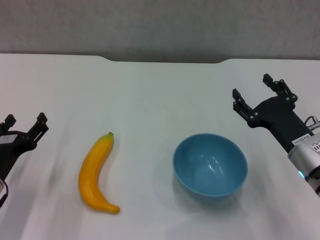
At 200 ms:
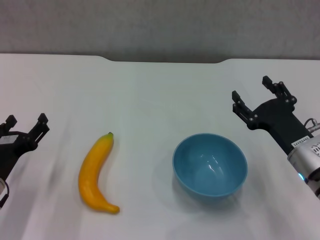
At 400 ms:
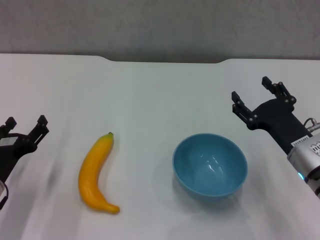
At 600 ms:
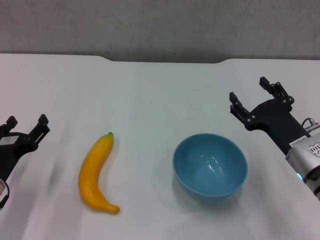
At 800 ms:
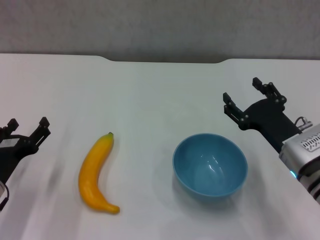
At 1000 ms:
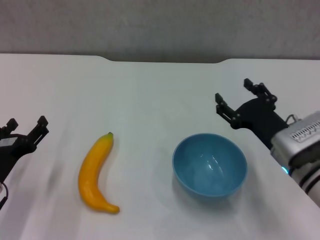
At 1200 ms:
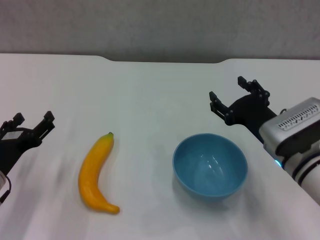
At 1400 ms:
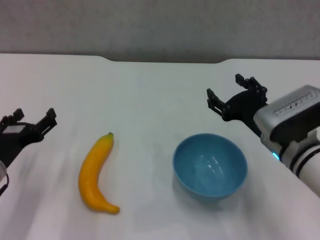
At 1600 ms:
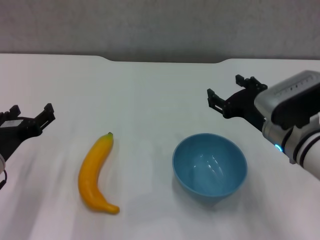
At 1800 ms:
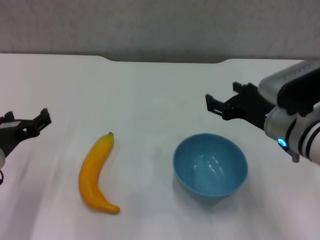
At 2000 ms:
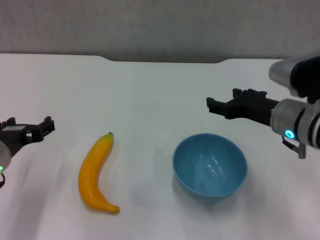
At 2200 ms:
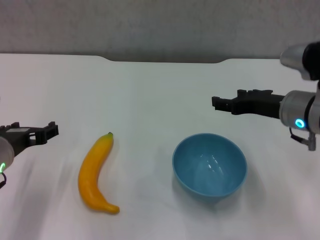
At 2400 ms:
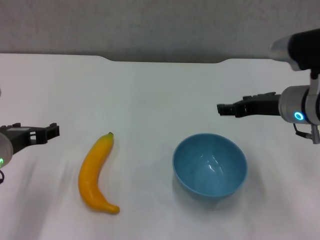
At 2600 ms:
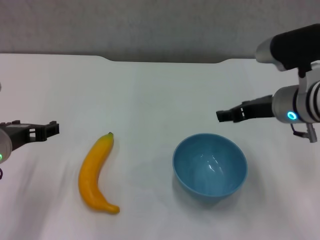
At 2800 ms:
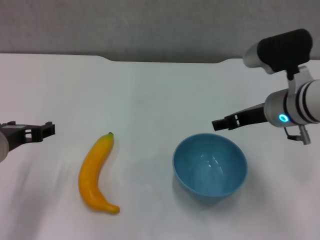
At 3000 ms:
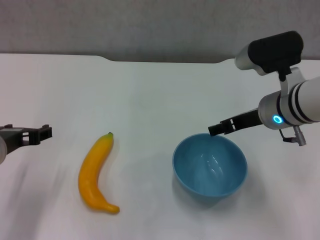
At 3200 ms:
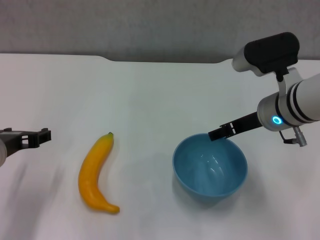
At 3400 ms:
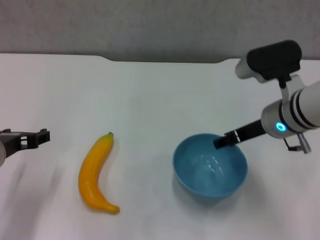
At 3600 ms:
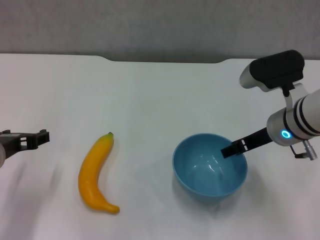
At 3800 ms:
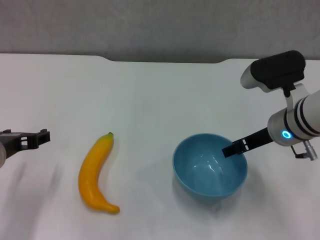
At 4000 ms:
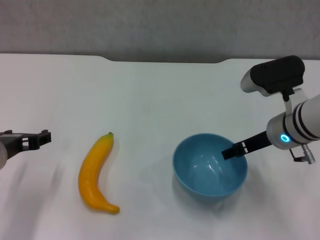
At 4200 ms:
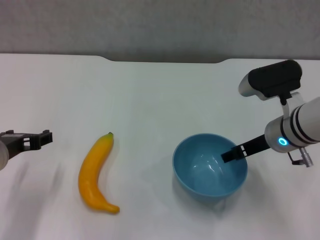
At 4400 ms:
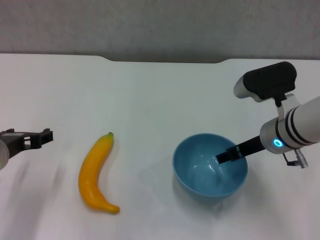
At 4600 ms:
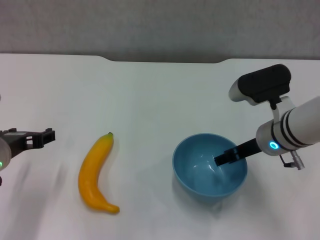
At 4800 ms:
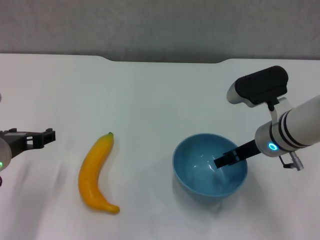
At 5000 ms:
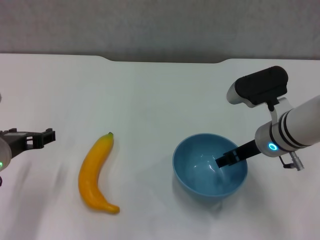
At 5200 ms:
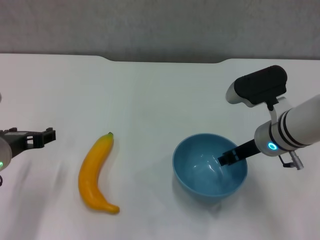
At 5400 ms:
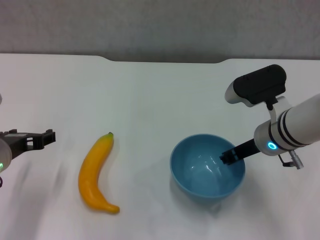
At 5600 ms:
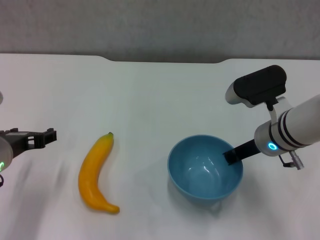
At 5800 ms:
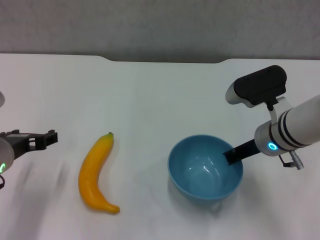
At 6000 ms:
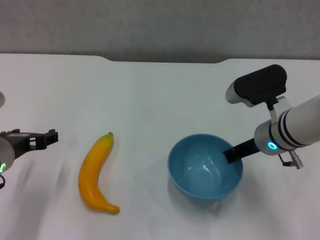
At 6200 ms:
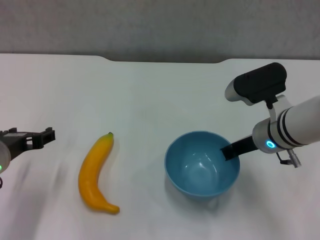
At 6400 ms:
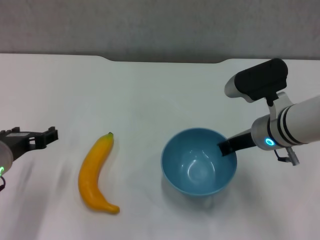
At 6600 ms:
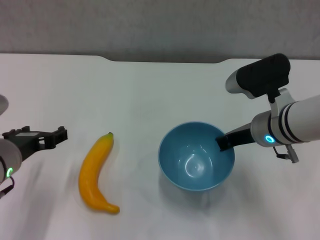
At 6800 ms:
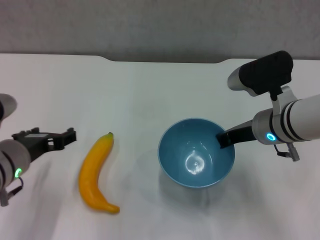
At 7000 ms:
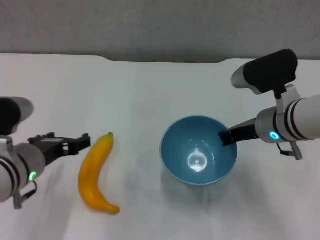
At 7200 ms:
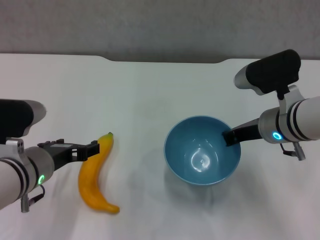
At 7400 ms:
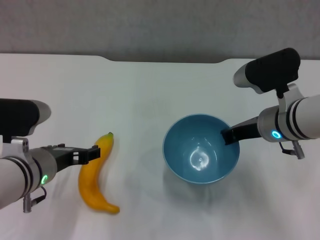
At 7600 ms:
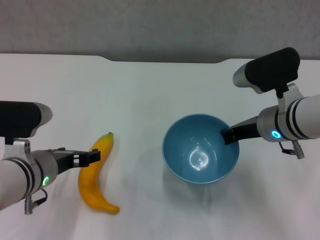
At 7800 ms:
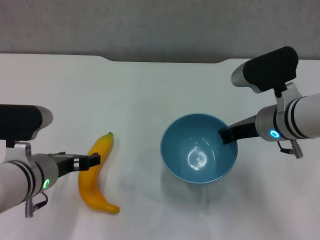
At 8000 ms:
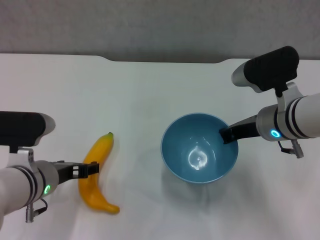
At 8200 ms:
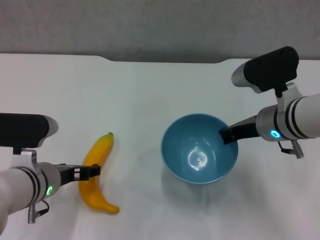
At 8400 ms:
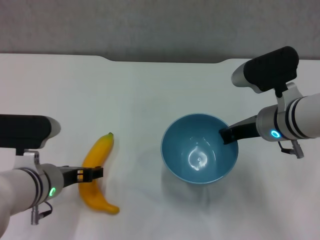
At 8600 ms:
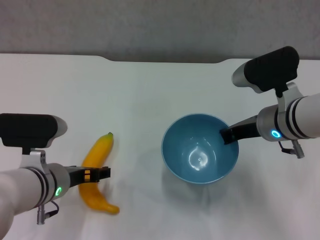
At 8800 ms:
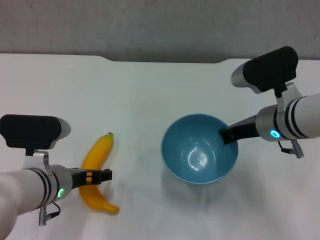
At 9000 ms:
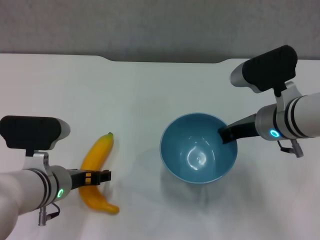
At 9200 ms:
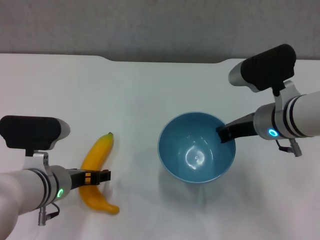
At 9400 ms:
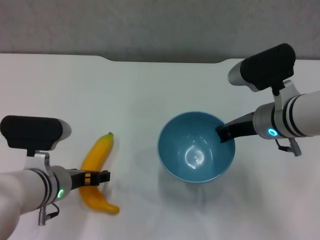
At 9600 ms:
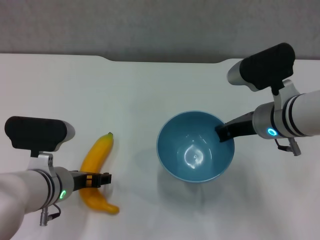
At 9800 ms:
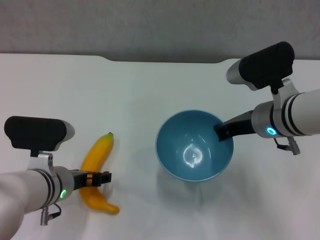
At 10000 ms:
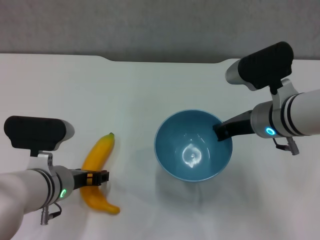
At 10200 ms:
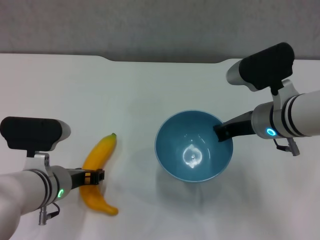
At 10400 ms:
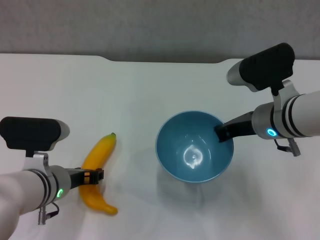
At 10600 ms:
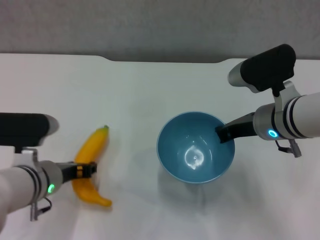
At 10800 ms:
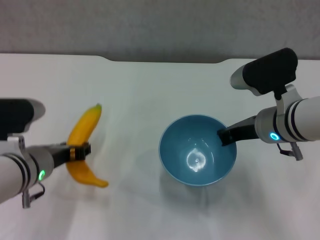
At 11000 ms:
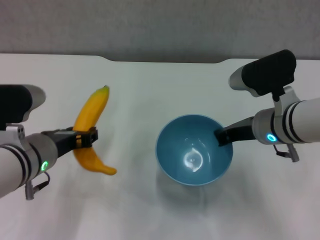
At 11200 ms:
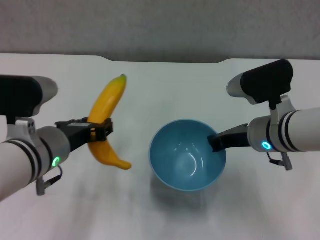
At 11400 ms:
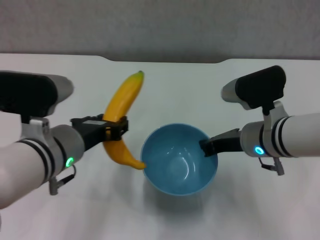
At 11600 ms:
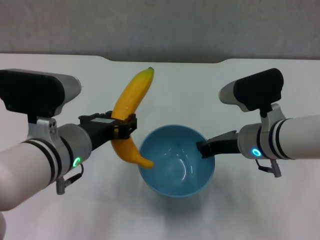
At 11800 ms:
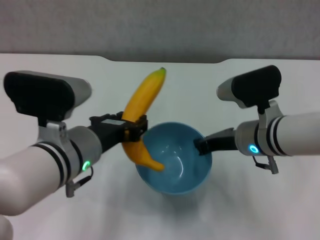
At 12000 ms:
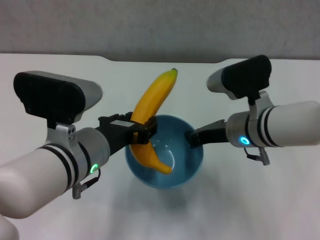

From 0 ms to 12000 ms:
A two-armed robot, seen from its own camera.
Step, from 0 ms to 5800 ms: Grasp the blue bowl with right gripper.
Step, from 6000 ms to 7400 ms: Lift the blue bowl with right gripper.
Step, from 7600 ms to 10200 ms: Grasp the banana with left gripper.
From 0 ms to 1600 ms: Both grippers move upward, some 5 cm.
From 1600 ms to 3000 ms: The right gripper shifts by about 5 cm. The left gripper goes some 5 cm upward.
From 3000 ms to 4400 ms: The grippers make only small movements.
From 4400 ms to 6000 ms: The right gripper closes its fingers.
From 6000 ms to 7600 ms: The left gripper shifts by about 5 cm.
From 7600 ms to 9000 ms: The grippers make only small movements.
From 9000 ms to 10400 ms: The left gripper closes its fingers.
From 10400 ms to 12000 ms: The left gripper heads upward and to the right, covering some 10 cm.

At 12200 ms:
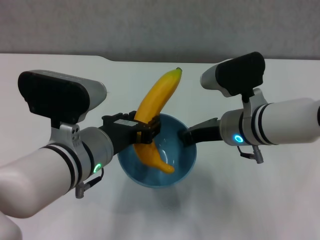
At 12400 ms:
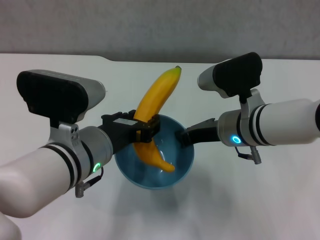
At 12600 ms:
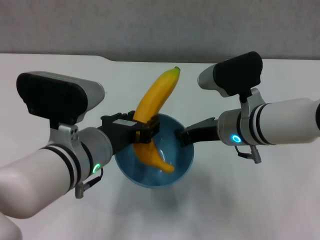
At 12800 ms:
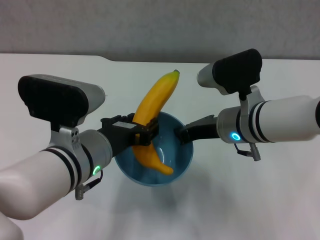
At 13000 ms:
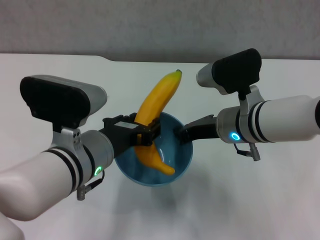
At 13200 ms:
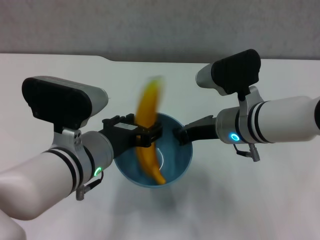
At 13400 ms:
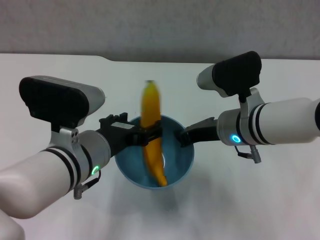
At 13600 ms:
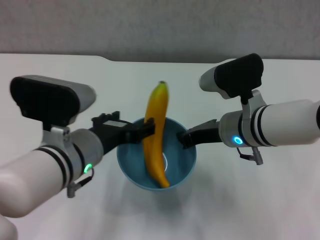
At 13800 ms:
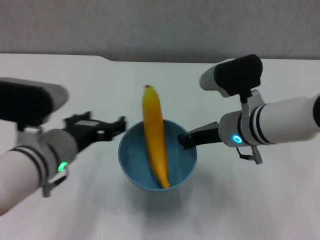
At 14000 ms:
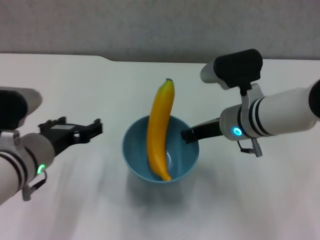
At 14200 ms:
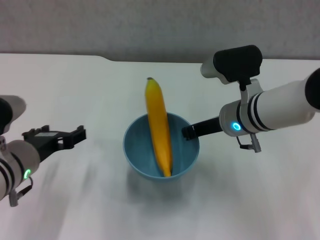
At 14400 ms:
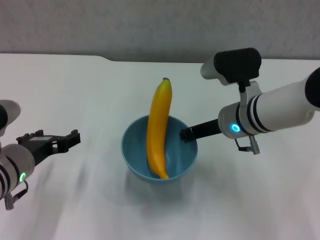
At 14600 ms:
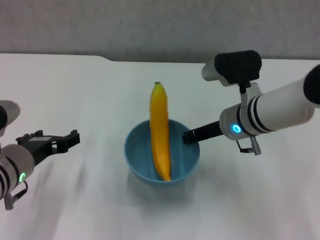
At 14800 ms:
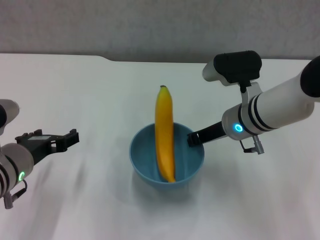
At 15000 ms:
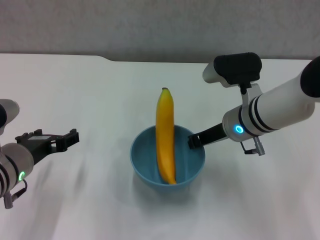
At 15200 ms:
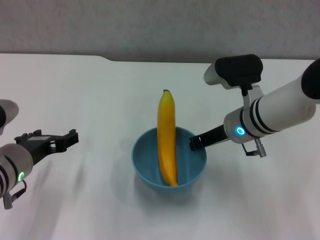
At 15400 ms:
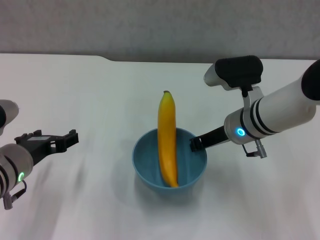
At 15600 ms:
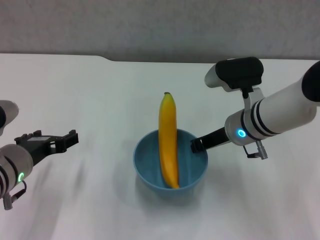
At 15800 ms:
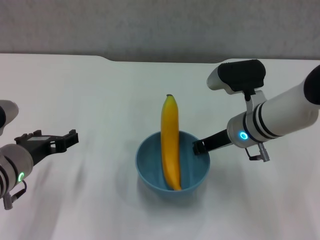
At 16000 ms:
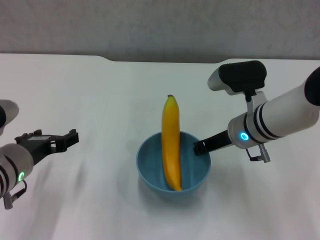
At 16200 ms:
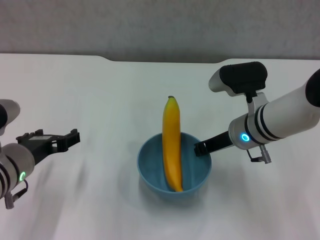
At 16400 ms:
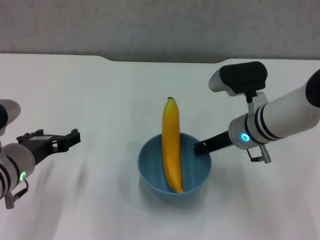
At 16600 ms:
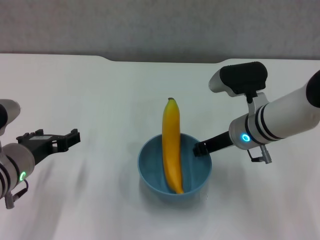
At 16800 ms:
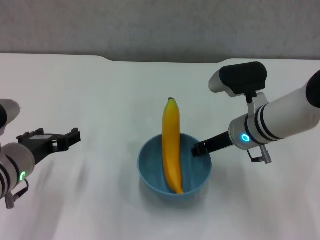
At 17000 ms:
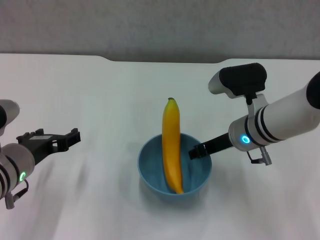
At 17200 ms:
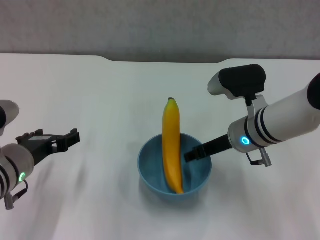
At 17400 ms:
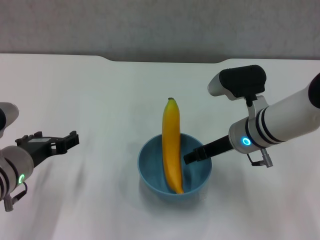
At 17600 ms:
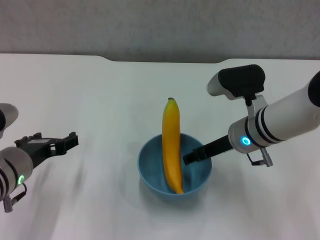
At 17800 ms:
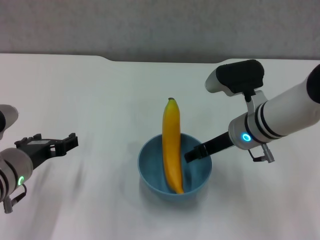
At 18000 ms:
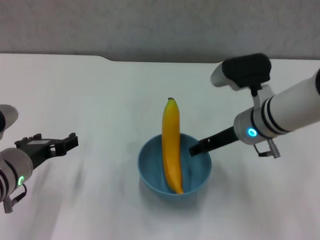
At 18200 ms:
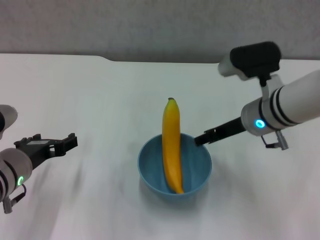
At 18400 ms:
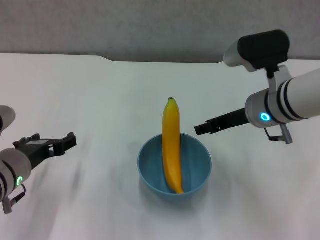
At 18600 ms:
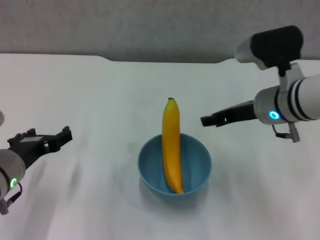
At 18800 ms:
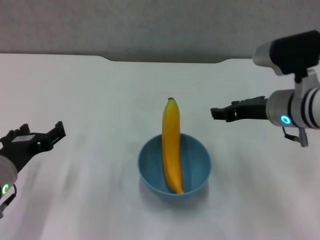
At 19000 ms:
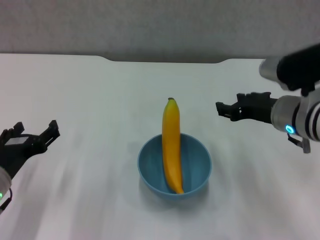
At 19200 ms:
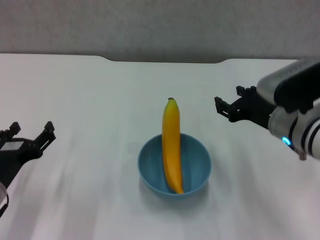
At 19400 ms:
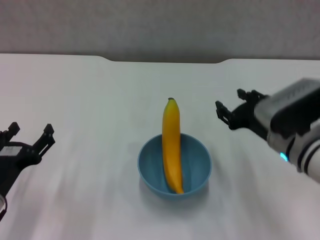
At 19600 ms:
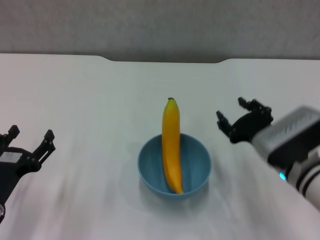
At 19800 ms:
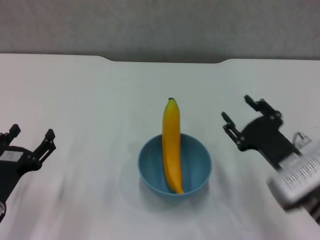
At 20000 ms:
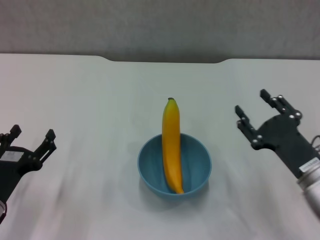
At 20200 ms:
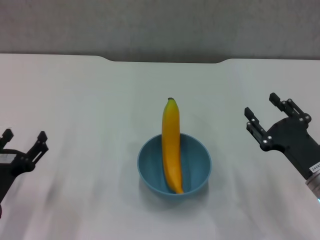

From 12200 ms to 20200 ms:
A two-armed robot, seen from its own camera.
Step, from 13600 ms to 18000 ms: Place the bowl on the table with right gripper.
From 12200 ms to 13800 ms: The left gripper travels to the left by roughly 5 cm, and opens up.
From 13800 ms to 15400 ms: The left gripper moves to the left, about 5 cm.
From 15400 ms to 17000 ms: Neither gripper changes place.
From 17000 ms to 18600 ms: The right gripper is displaced upward by approximately 5 cm, and opens.
From 18600 ms to 20200 ms: The right gripper heads downward, backward and to the right, covering some 20 cm, while the left gripper travels downward and to the left by roughly 10 cm.
